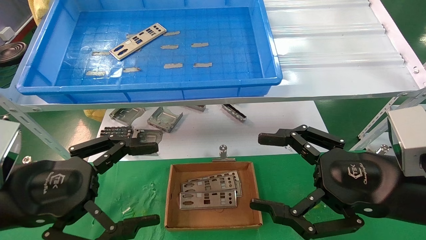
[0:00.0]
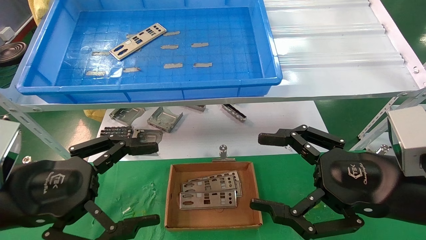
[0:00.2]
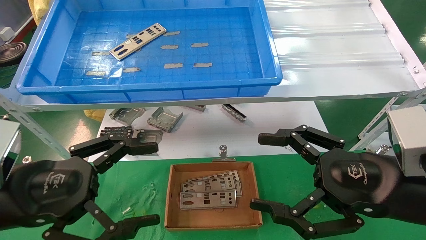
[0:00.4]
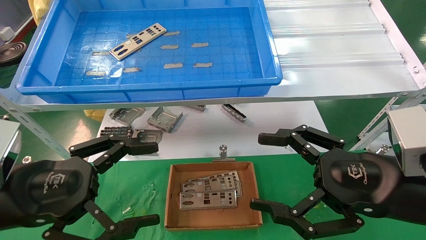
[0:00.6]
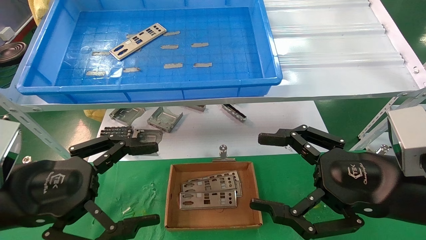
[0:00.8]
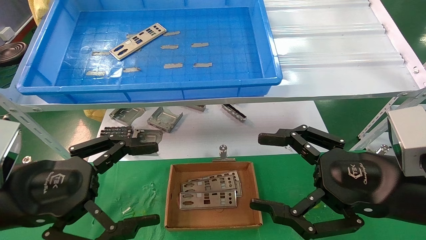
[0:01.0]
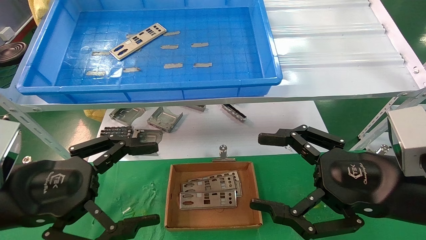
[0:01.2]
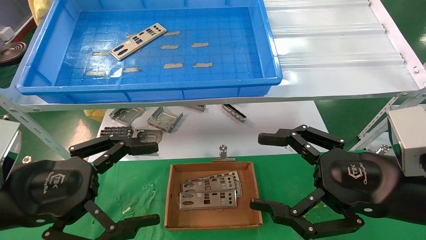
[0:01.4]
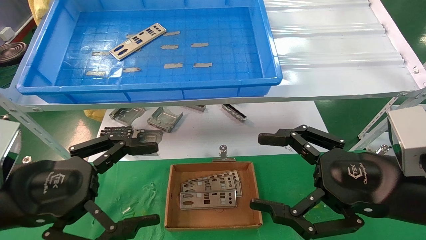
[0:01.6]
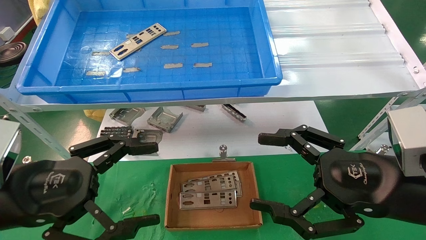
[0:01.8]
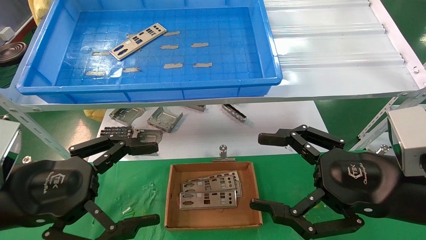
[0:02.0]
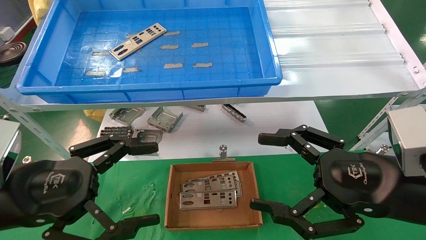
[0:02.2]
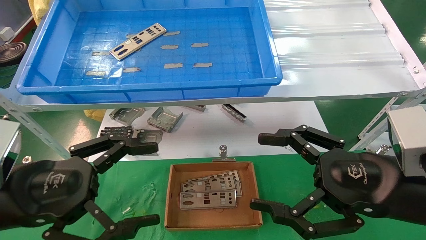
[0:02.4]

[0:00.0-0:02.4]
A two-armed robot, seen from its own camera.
Task of the whole recording: pick up the parts on the tray and put them in the cardboard box.
0:00.0 to 0:02.4: Both grippers stay put.
